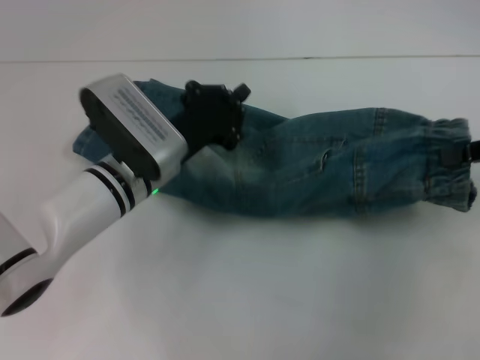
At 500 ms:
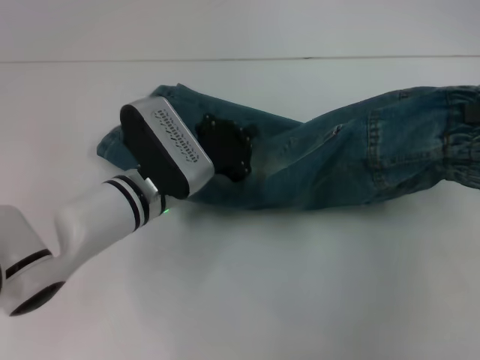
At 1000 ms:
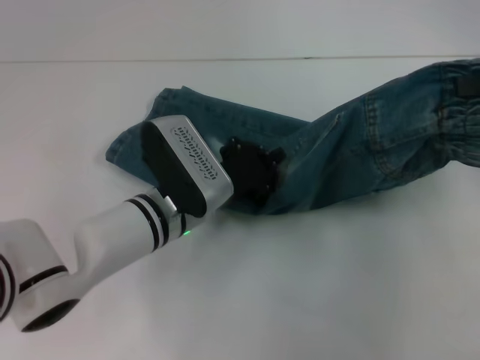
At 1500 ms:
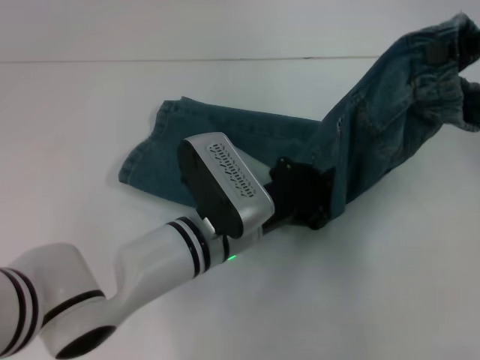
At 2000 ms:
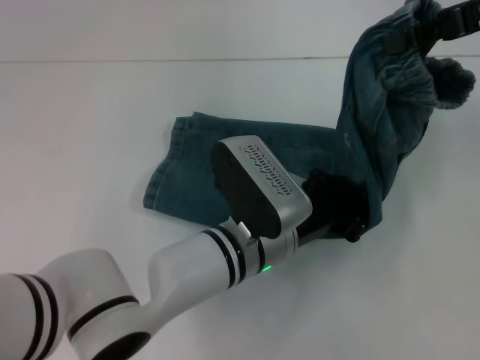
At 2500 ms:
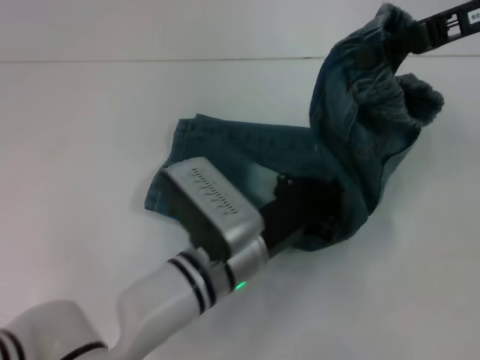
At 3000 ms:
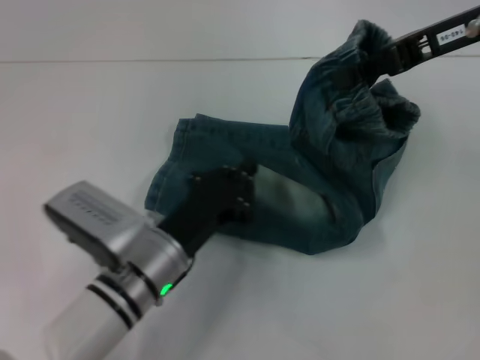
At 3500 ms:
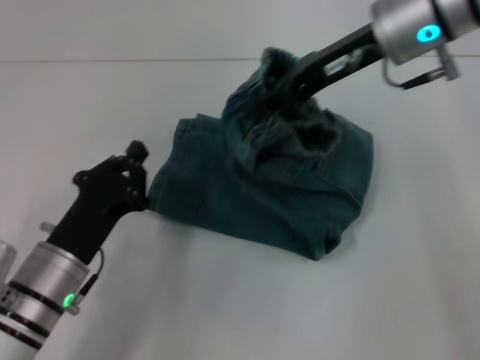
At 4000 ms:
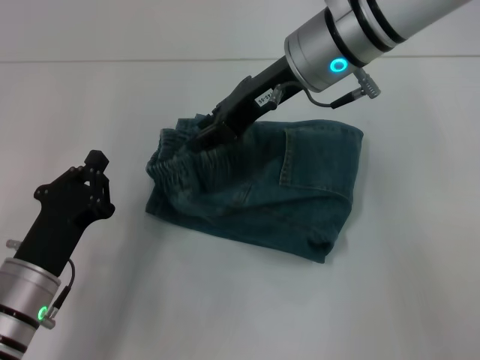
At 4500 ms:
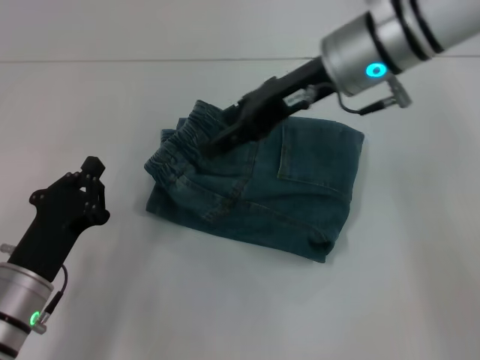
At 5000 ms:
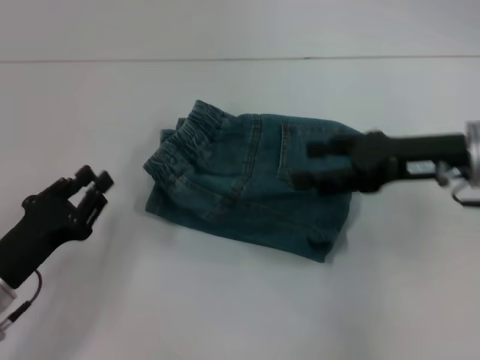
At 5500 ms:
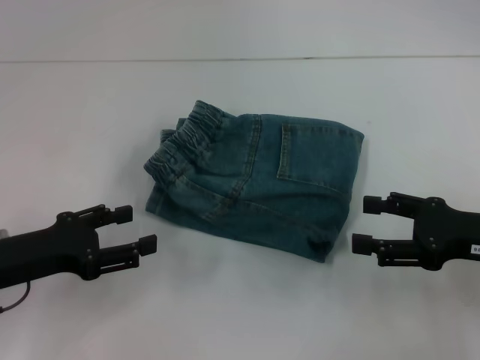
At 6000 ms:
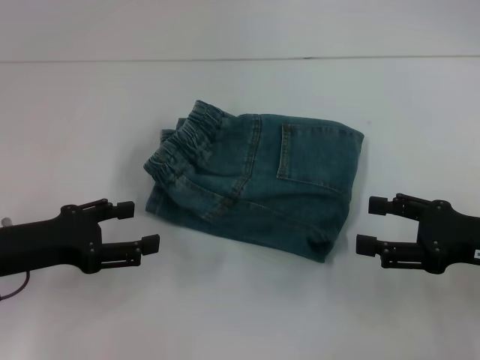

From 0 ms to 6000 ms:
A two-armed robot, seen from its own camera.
Step, from 0 ms to 2000 ms: Press the middle of the pants with your left hand.
Step, from 3000 ms to 4000 ms: Fold to the left with your right hand.
From 0 ms to 2000 ms: The right gripper moves upward, forward and to the left, some 15 cm. The left gripper heads to the right and backward, covering approximately 15 cm.
From 2000 ms to 4000 ms: Both grippers move to the left, roughly 20 cm.
From 4000 ms to 6000 ms: The right gripper travels to the right, backward and downward by about 30 cm, and opens; the left gripper heads upward and to the left, covering some 10 cm, and opens its fingers.

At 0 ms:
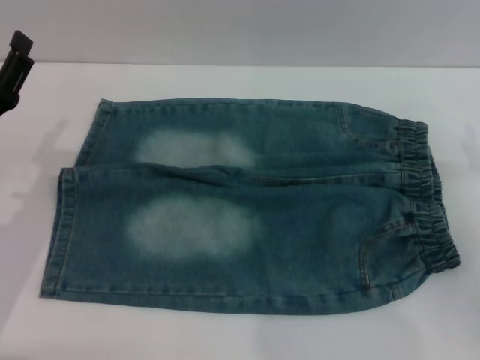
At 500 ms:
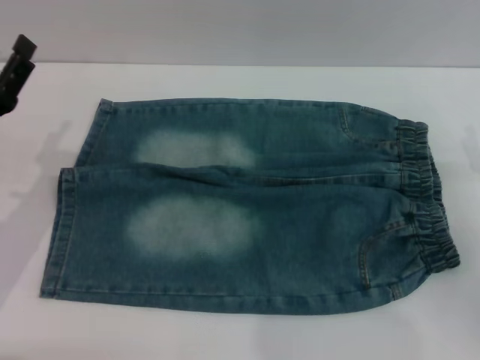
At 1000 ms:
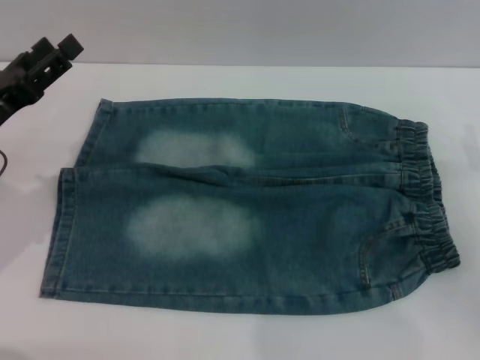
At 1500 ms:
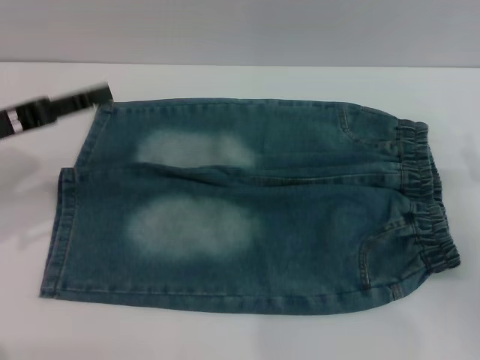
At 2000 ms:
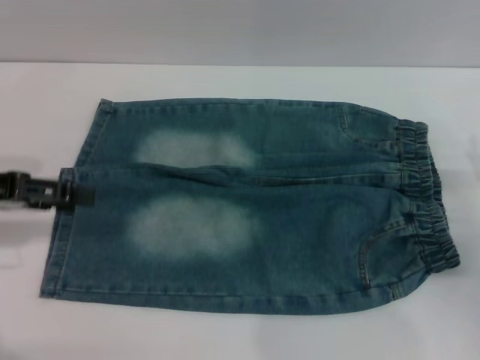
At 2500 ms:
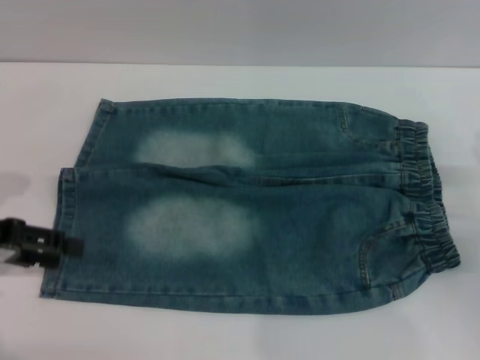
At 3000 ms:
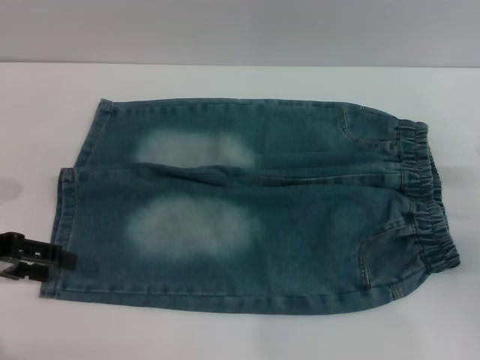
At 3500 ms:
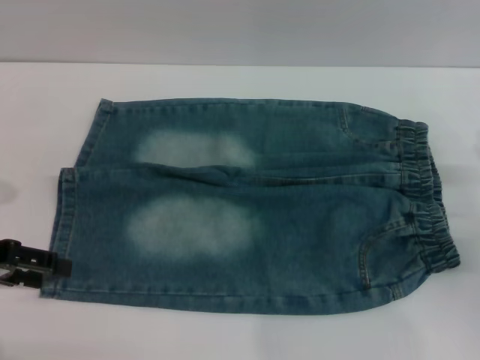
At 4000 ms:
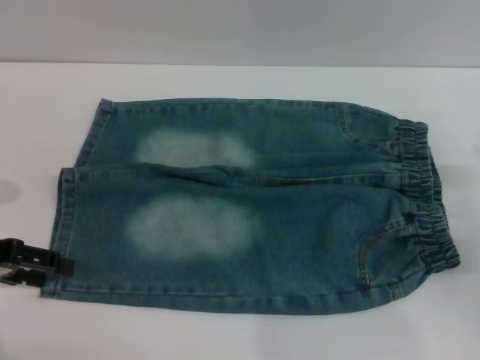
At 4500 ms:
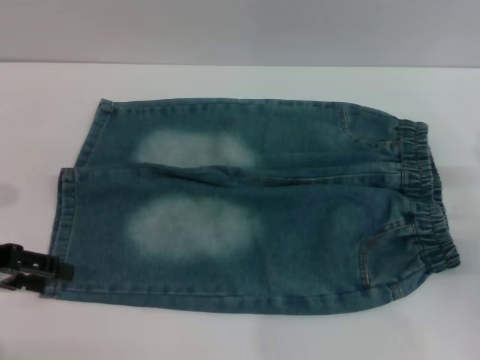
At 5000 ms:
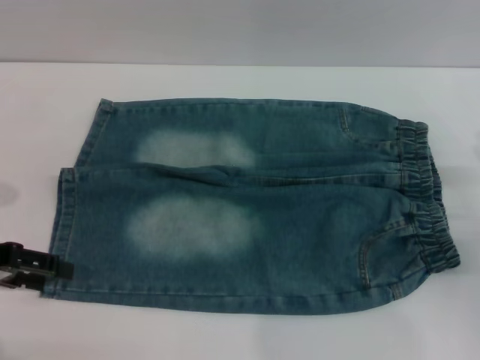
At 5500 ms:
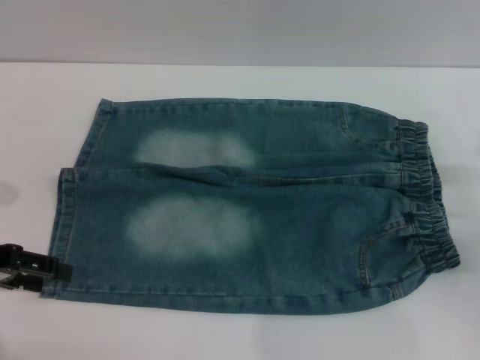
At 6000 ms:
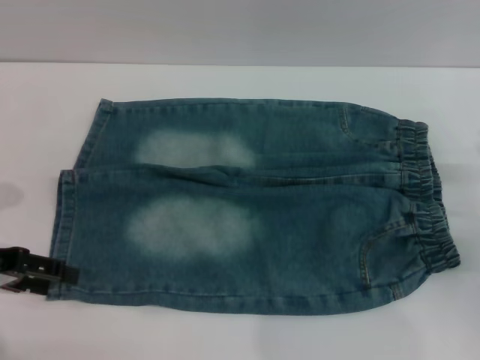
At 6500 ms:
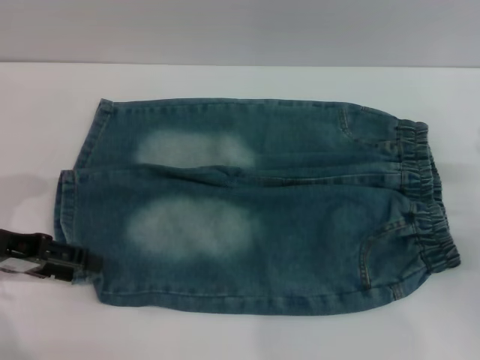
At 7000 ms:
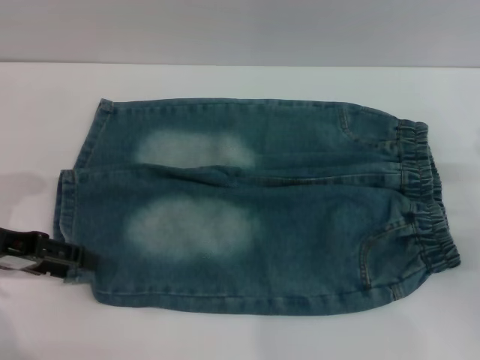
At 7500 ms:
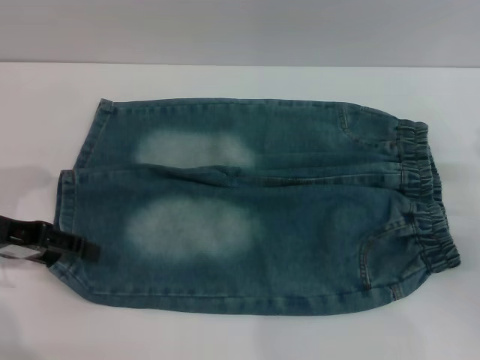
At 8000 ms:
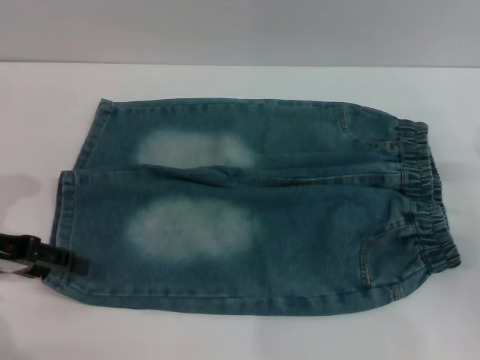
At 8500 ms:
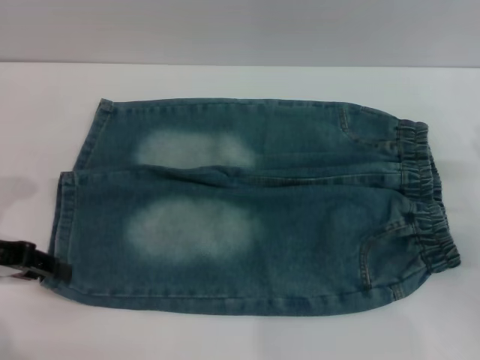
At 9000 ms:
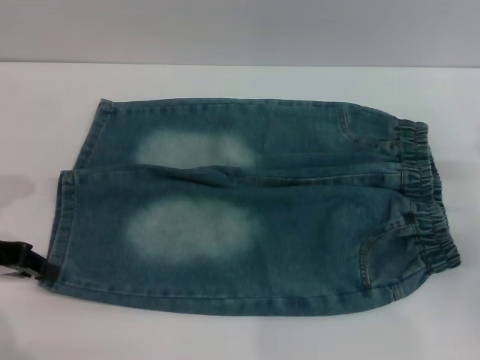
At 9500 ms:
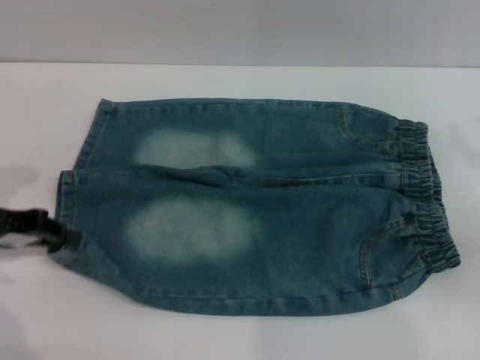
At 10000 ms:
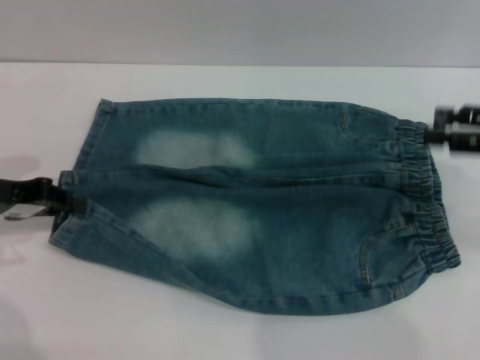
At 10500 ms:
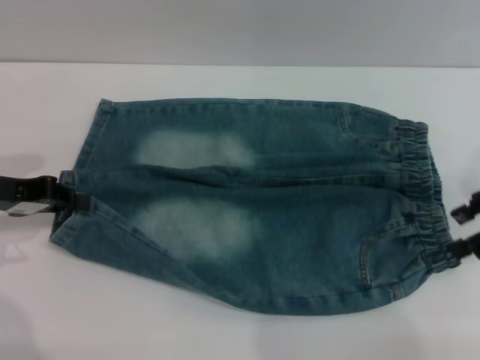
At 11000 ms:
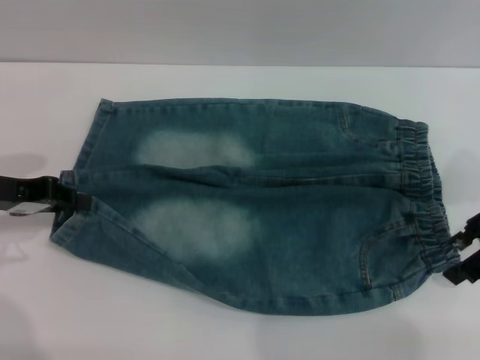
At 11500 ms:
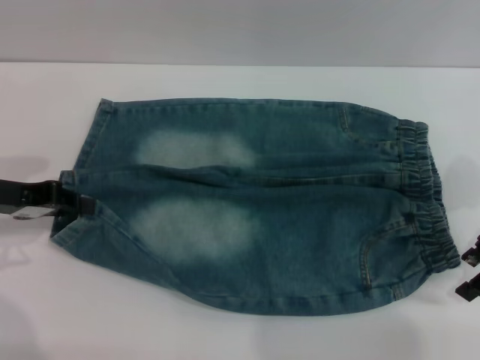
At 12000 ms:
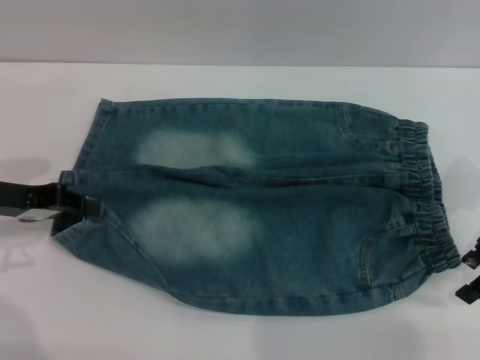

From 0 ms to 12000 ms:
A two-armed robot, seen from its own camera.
From 0 ms to 2000 ms: The left gripper travels upward and to the left by approximately 10 cm.
From 4000 ms to 6000 ms: Both grippers stay about where they are.
From 6000 ms to 8000 ms: The grippers move only a little.
From 8000 ms to 10000 ms: The right gripper shifts some 10 cm upward. The left gripper closes its fingers.
From 10000 ms to 12000 ms: The right gripper moves some 5 cm.

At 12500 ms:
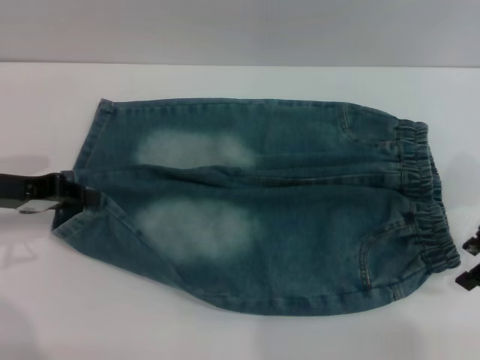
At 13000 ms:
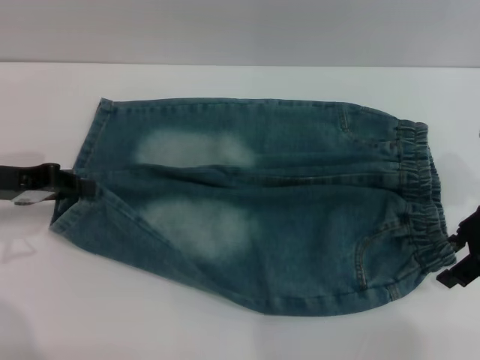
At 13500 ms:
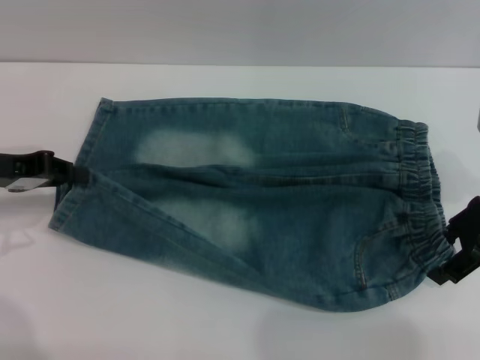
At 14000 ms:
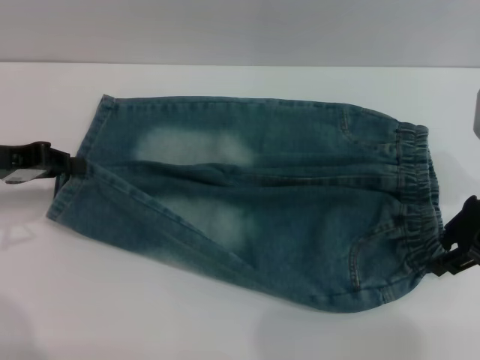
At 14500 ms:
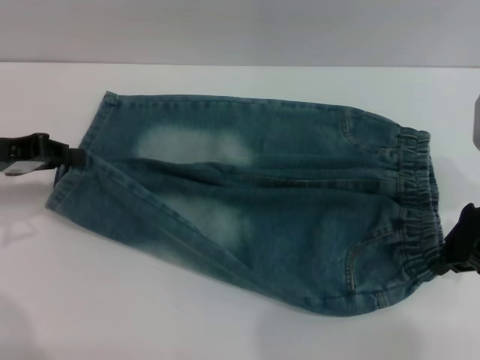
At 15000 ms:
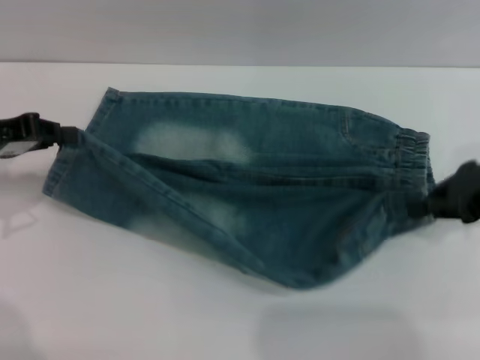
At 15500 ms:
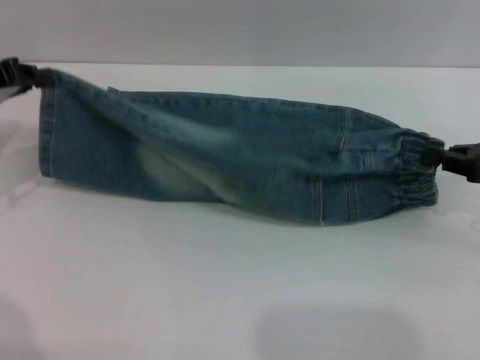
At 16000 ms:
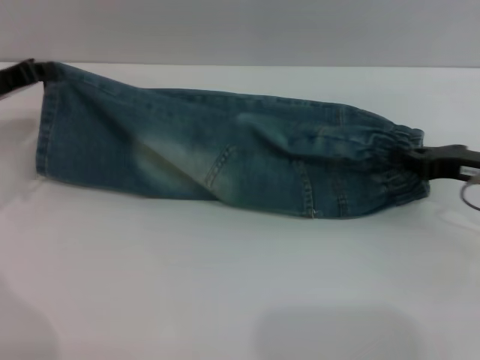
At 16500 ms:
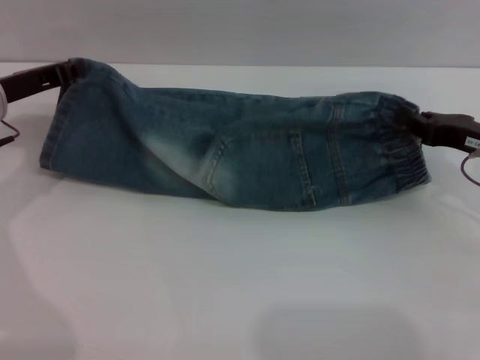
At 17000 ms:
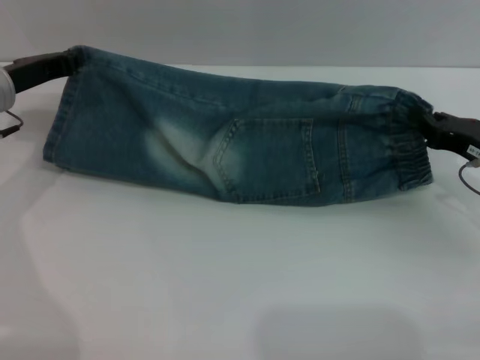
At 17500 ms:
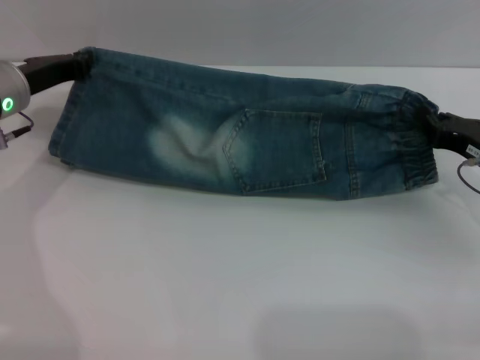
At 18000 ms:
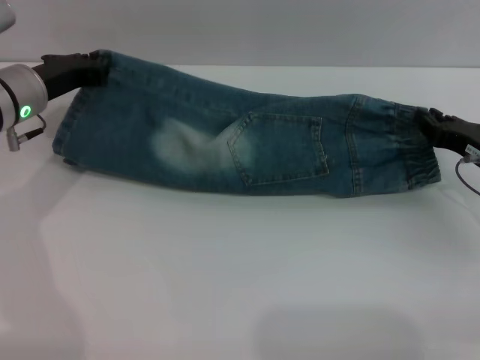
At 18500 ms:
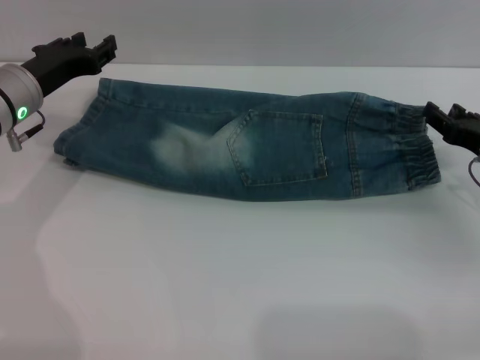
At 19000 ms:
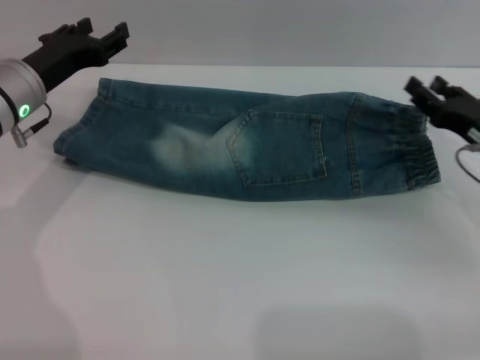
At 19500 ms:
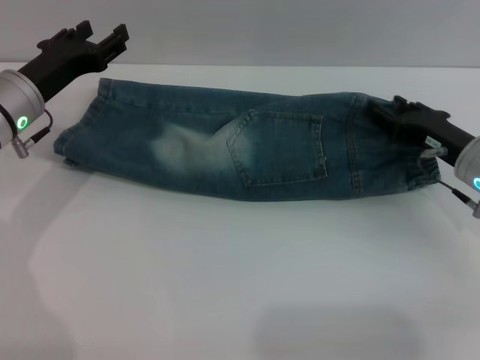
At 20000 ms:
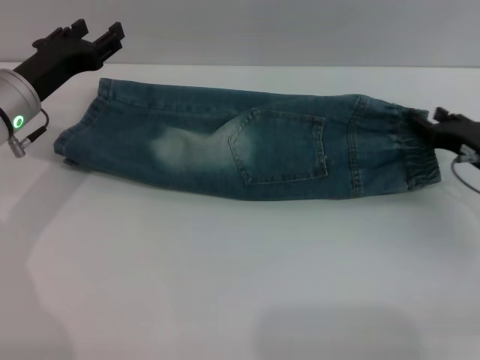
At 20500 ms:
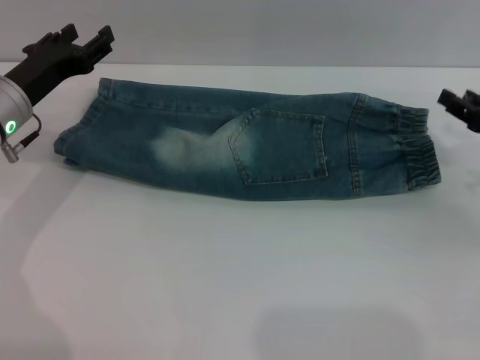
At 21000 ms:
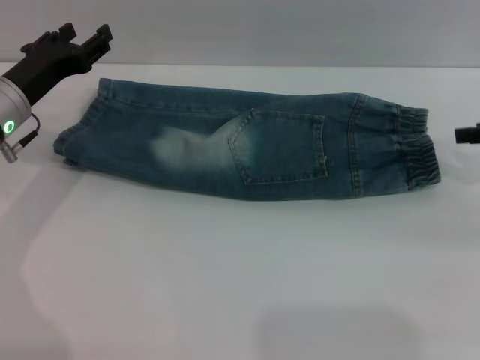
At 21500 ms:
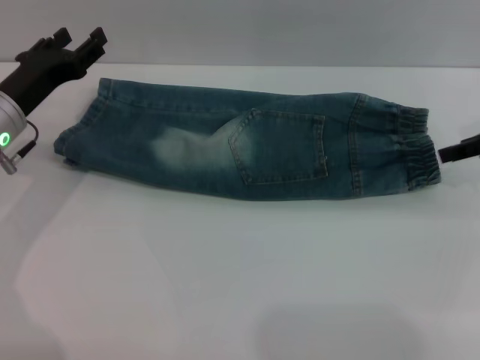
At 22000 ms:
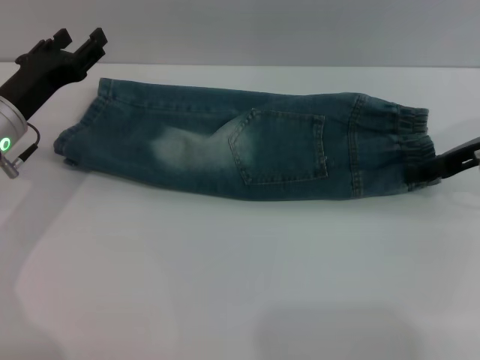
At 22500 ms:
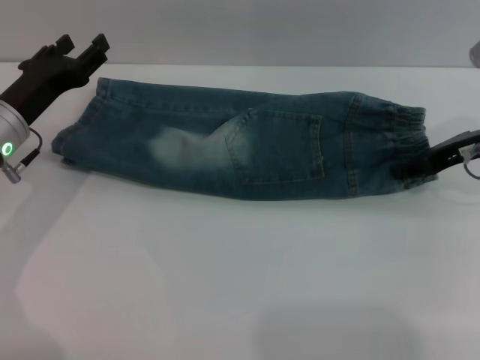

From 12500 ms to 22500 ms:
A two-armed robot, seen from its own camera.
Step, from 12500 ms to 19500 ms: Fold the bottom of the pants upward with both grippers.
From 12500 ms to 14500 ms: The right gripper closes.
From 14500 ms to 16500 ms: The left gripper is displaced forward by roughly 5 cm. Meanwhile the right gripper moves downward, some 5 cm.
From 16500 ms to 18500 ms: The right gripper opens its fingers.
From 18500 ms to 20500 ms: The left gripper opens.
From 20500 ms to 22500 ms: The right gripper goes some 10 cm to the left and forward.
